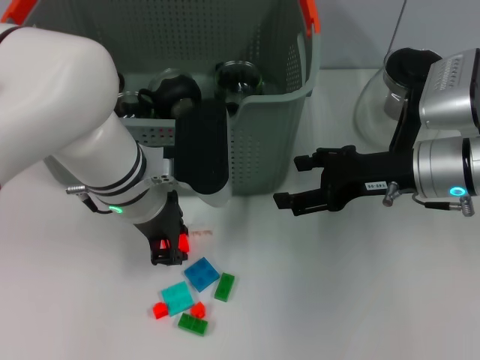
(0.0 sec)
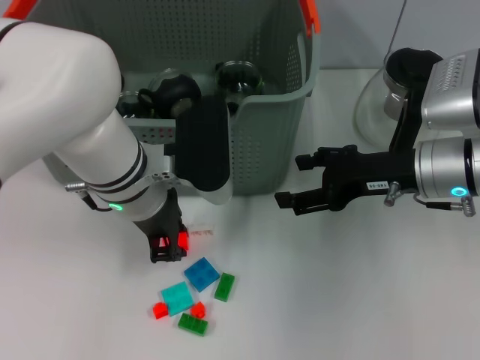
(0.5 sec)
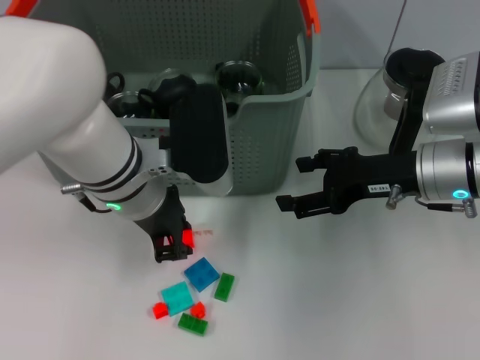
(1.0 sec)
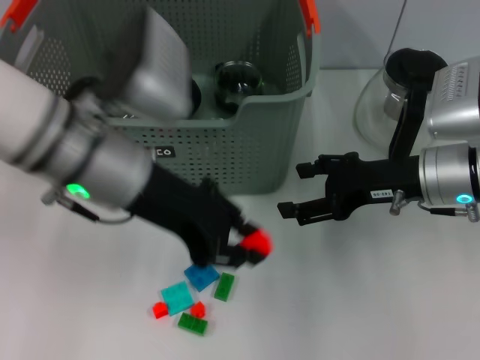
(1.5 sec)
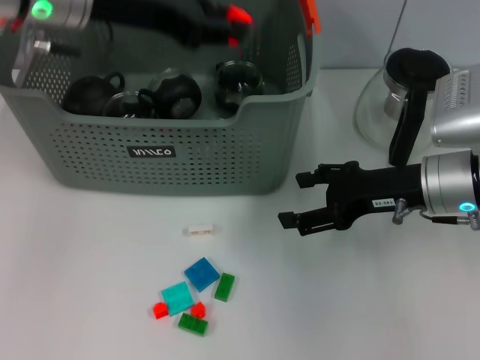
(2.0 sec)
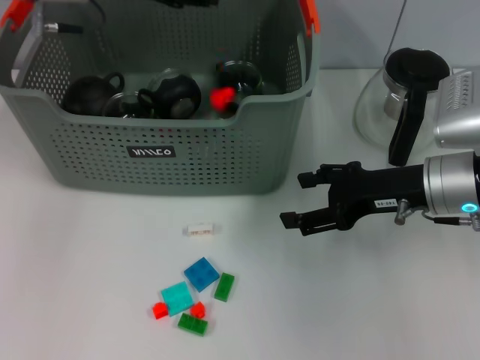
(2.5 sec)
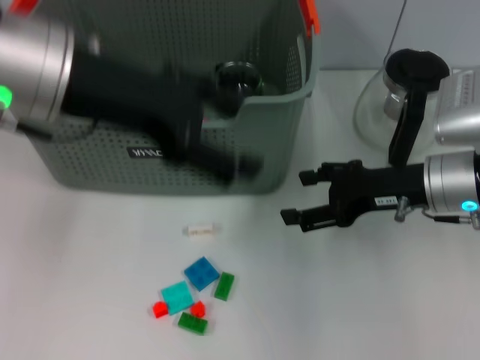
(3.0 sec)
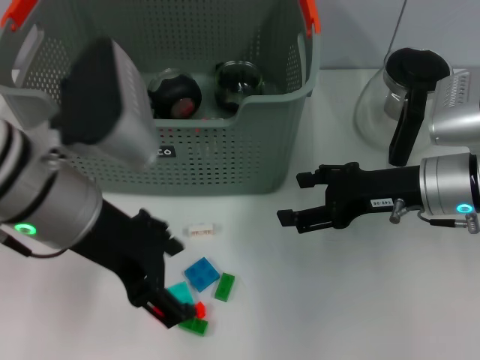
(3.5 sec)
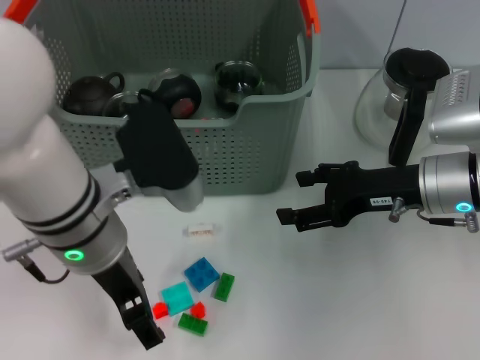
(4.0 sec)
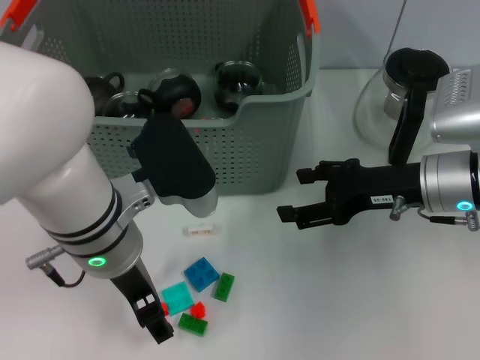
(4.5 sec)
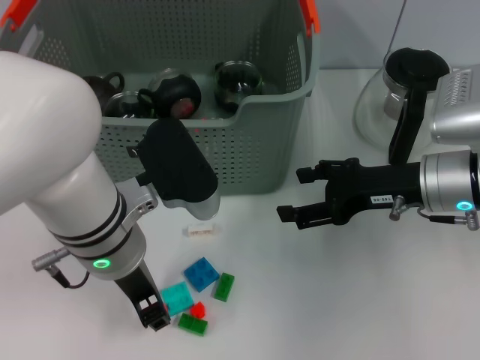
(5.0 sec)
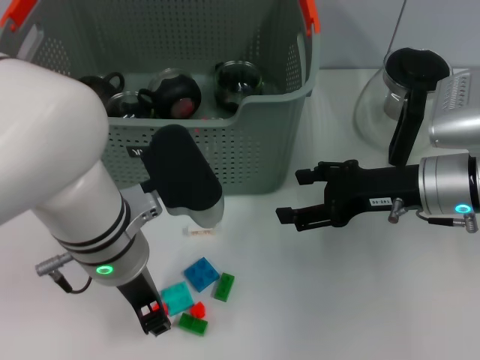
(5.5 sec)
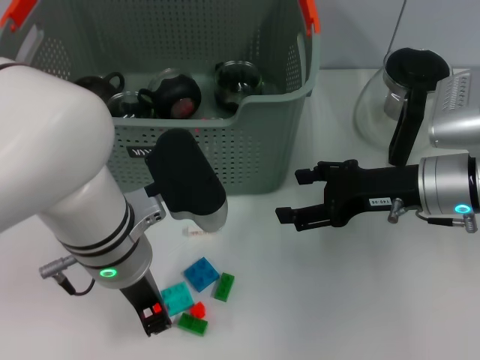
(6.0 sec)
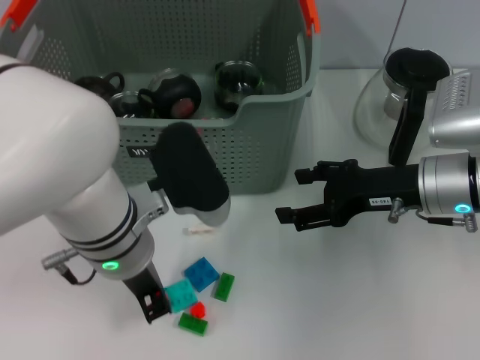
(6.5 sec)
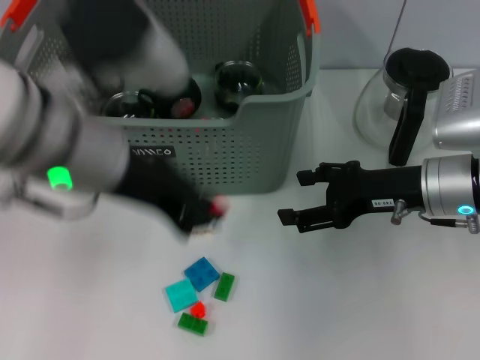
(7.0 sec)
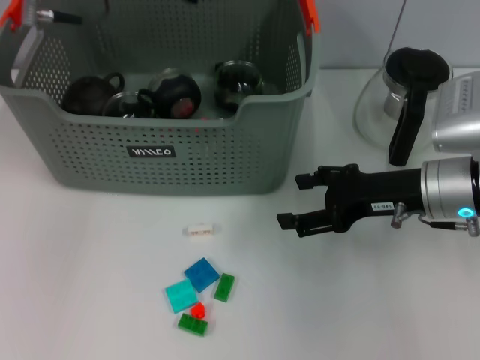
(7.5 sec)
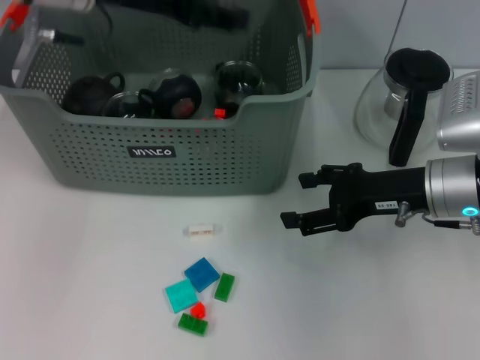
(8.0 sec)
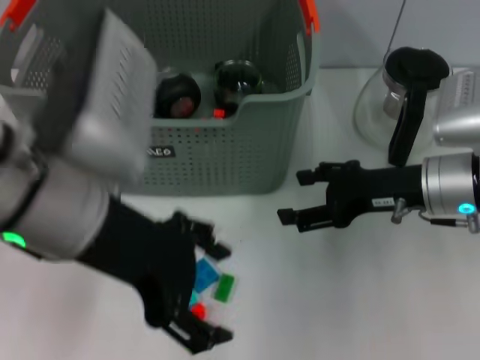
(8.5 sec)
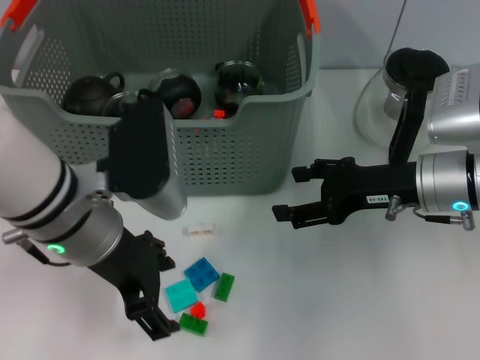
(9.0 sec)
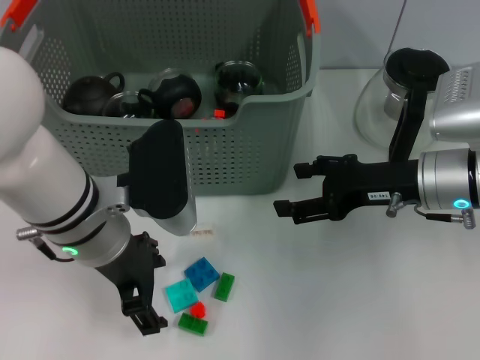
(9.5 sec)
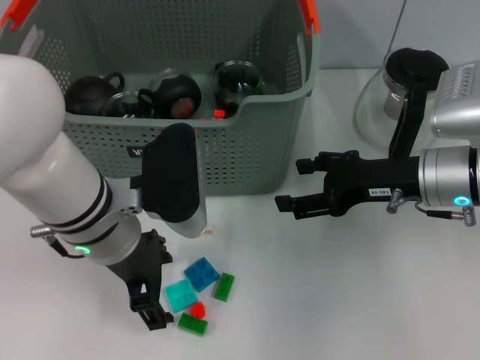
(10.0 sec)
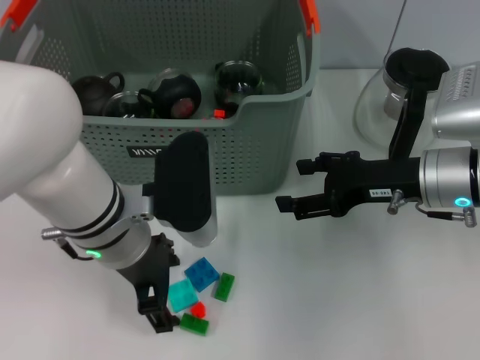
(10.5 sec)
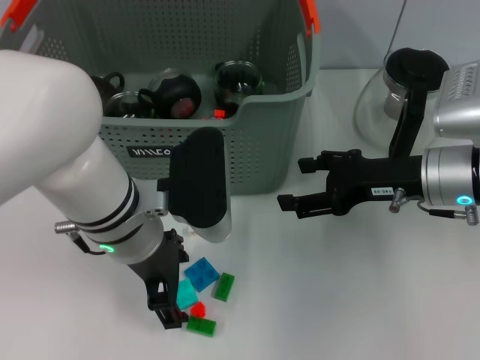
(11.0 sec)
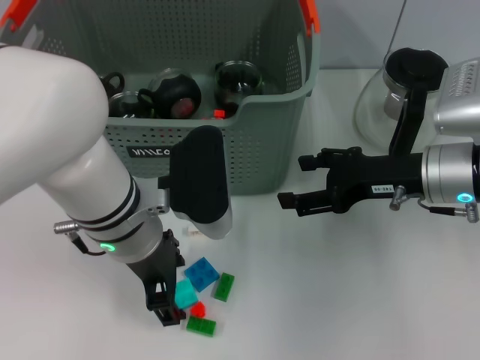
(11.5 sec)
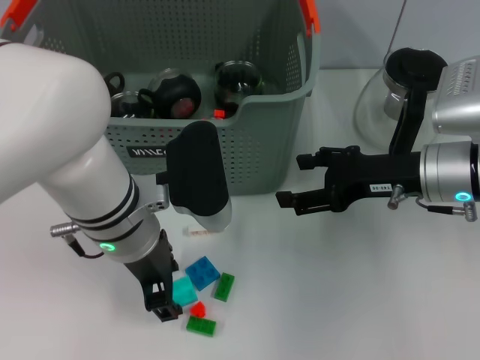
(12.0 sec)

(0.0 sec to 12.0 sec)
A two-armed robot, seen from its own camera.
Task of the whole recording: pick up the teacup on the table and place it into the storage bin, pick up the block on the table and place it into the storage bin.
Step, 0.5 sec - 2.5 sec: Place the orange block in the storage box with left gripper.
Step, 3.0 sec - 6.0 sec: Grasp the orange block with left gripper.
Step, 6.5 sec - 7.5 sec: Place the orange block in the storage box with left gripper.
0.0 sec - 2.0 sec: The left gripper heads upward, to the left and forward, covering roughly 15 cm.
2.0 sec - 4.0 sec: The left gripper moves backward, downward and to the right, about 15 cm, and opens.
4.0 sec - 6.0 sec: The left gripper closes.
6.0 sec - 8.0 sec: The left gripper heads upward, forward and to the left, covering roughly 20 cm.
8.0 sec - 10.0 sec: The left gripper goes roughly 20 cm downward and backward, and opens its fingers.
10.0 sec - 12.0 sec: The grippers make only small movements.

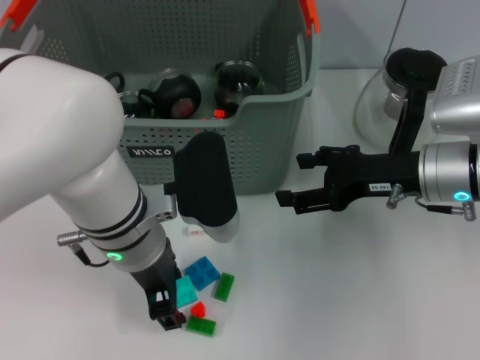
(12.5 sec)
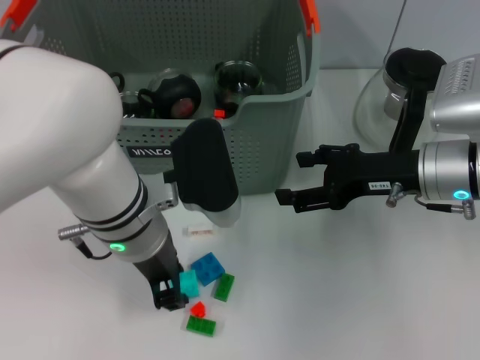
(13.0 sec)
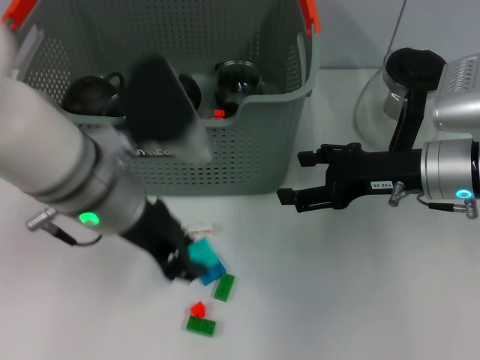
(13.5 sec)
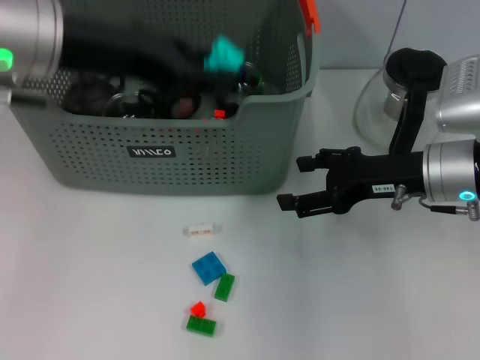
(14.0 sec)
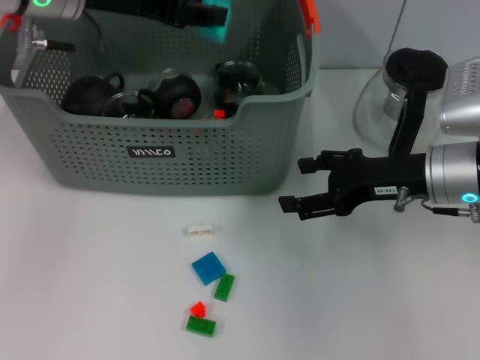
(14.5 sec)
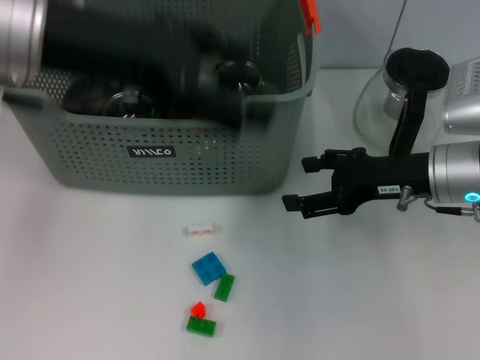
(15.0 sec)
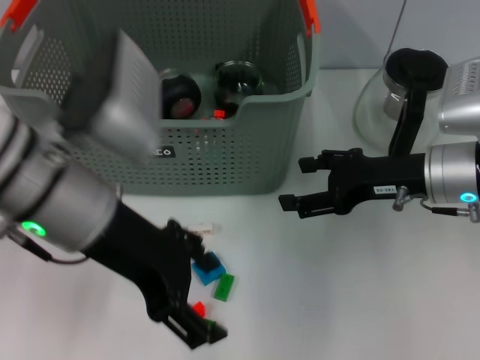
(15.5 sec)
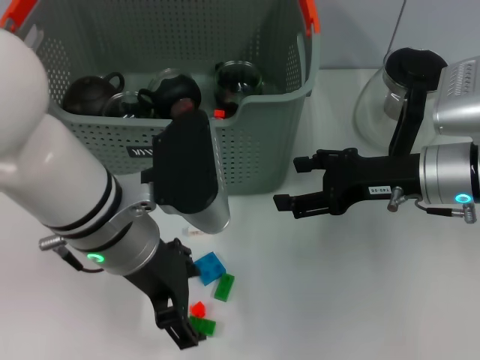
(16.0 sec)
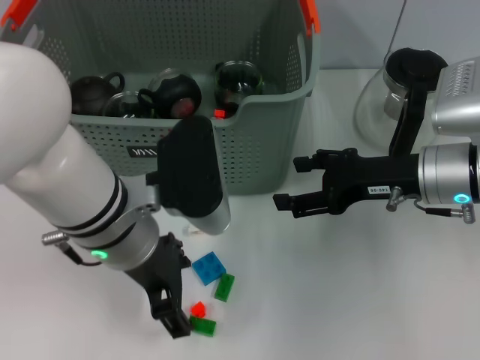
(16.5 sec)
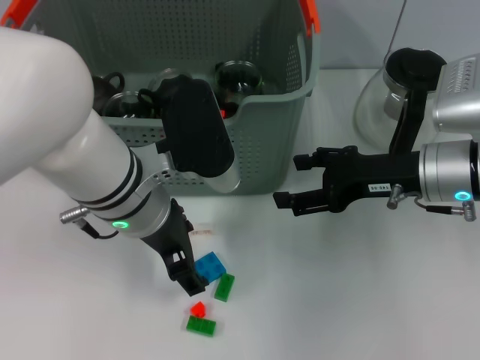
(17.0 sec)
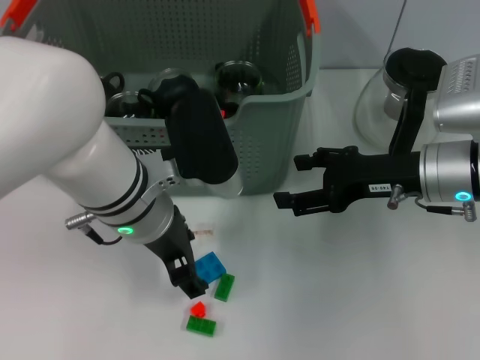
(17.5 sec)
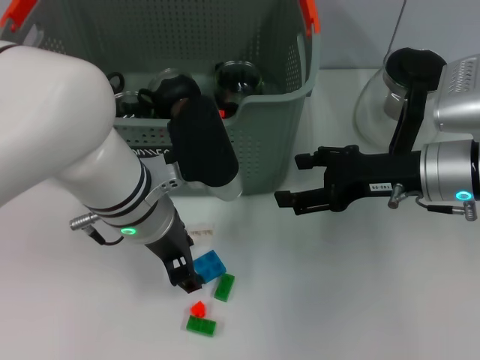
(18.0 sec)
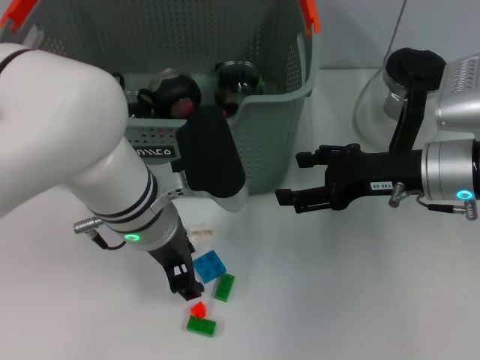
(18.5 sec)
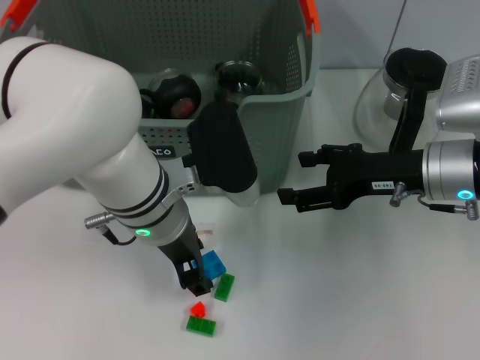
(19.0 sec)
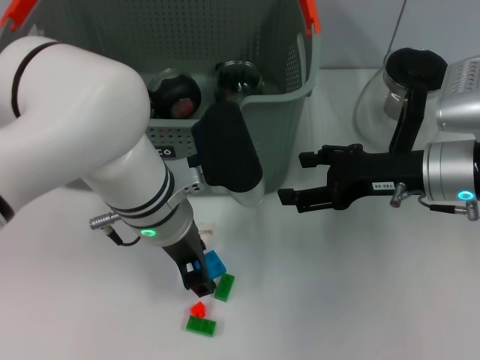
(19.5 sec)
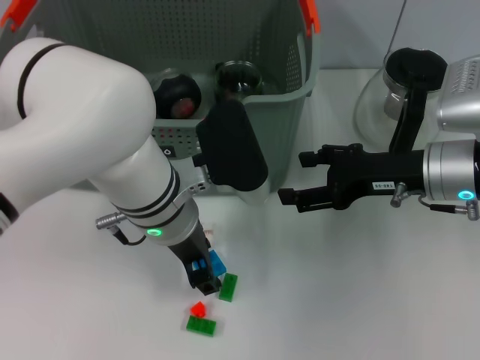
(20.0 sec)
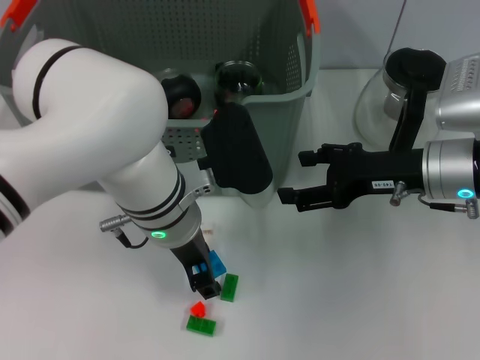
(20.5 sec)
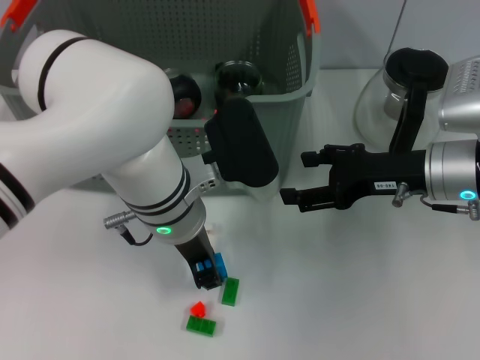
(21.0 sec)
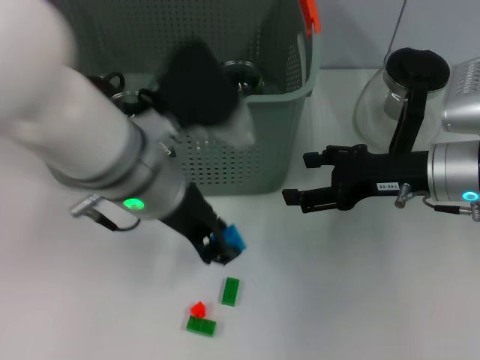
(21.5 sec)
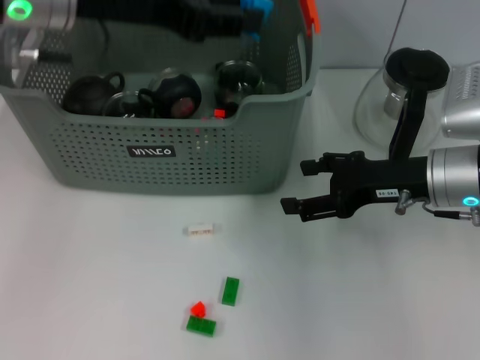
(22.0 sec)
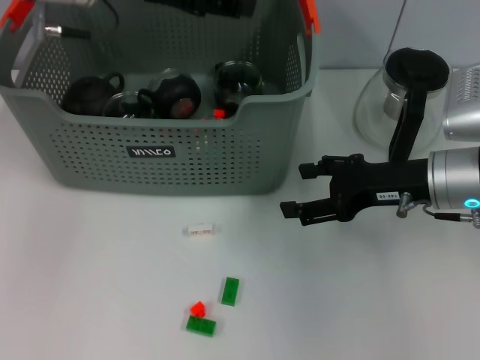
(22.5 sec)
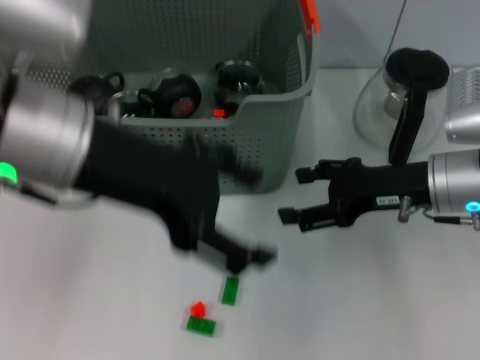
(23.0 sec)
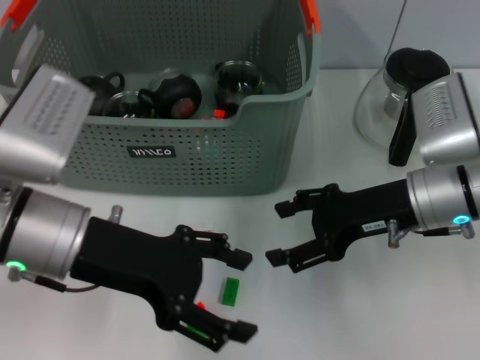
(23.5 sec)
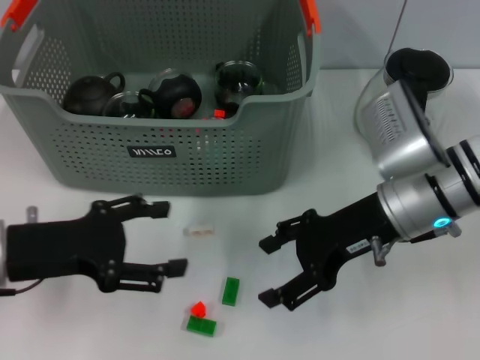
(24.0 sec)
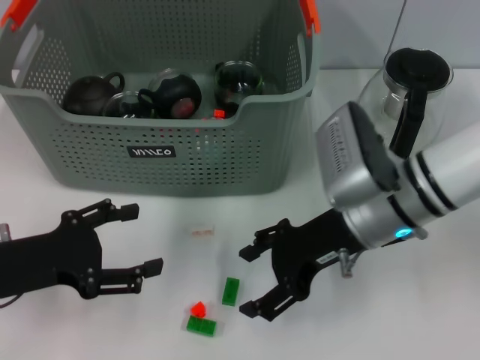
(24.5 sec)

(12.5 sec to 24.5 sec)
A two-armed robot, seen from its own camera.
Task of the whole recording: pick up the teacup on the table and place it into the storage bin, pick up the block on the table and place it into the storage bin.
Step, 13.0 sec - 14.5 sec: Place the light blue block in the storage box with left gripper.
Step, 15.0 sec - 20.5 sec: Grasp the dark blue block with left gripper.
Step, 21.5 sec - 22.0 sec: Place the dark blue block in the storage box with left gripper.
12.5 sec - 14.5 sec: The left gripper goes approximately 20 cm upward, forward and to the left.
14.5 sec - 16.5 sec: The left gripper heads backward, downward and to the right, covering about 20 cm, and opens its fingers.
18.5 sec - 20.5 sec: The grippers move only a little.
20.5 sec - 22.5 sec: The left gripper is displaced upward, to the left and forward by roughly 20 cm.
22.5 sec - 24.5 sec: The right gripper shifts roughly 10 cm to the left. The left gripper goes about 30 cm downward, backward and to the left, and opens up.

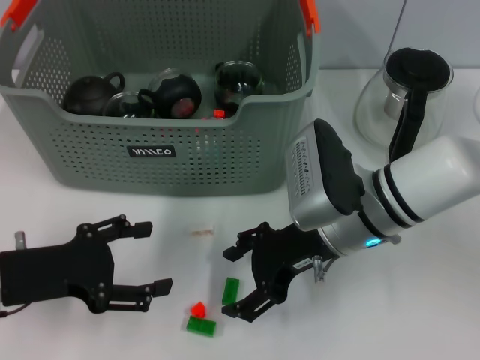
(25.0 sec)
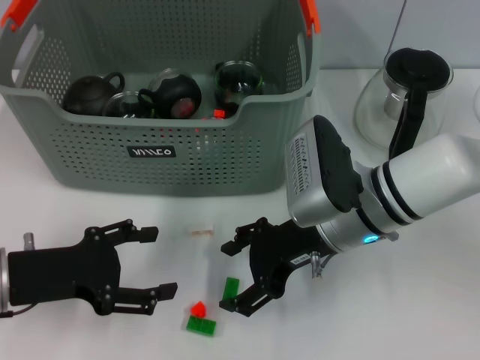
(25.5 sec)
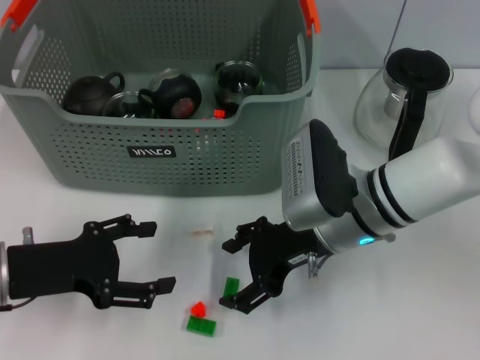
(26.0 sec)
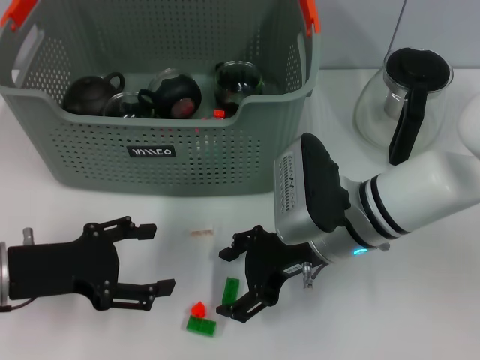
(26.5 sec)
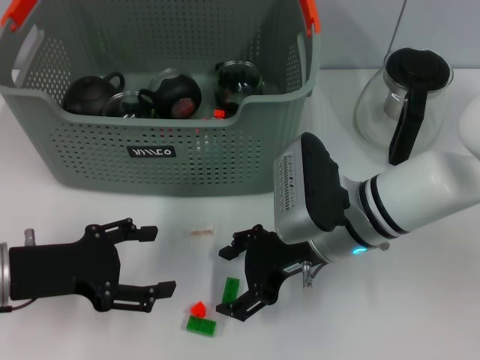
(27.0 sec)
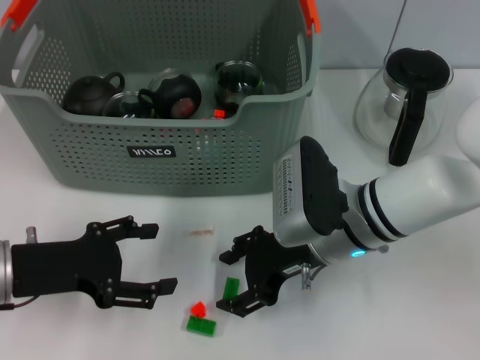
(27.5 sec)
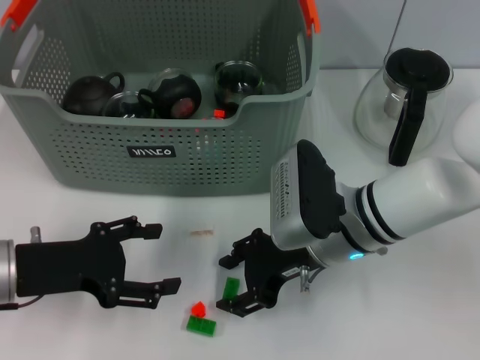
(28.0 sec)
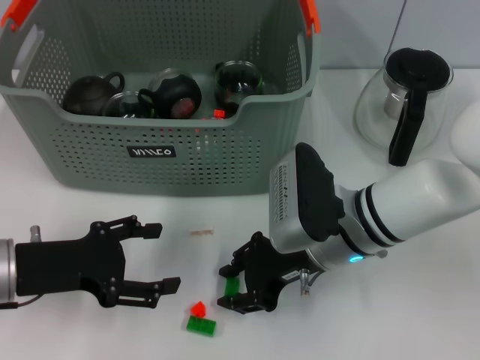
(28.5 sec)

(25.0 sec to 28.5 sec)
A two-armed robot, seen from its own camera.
Task of the whole recording: pick up the teacup on the table and place it into the storage bin, pick up the block on the table and place it into the storage bin.
25.0 sec - 27.0 sec: There are only small adjustments of the grippers.
27.0 sec - 28.5 sec: The right gripper closes.
